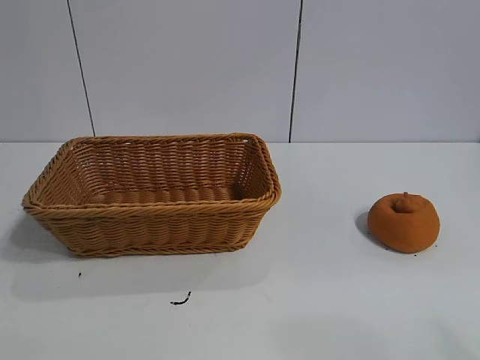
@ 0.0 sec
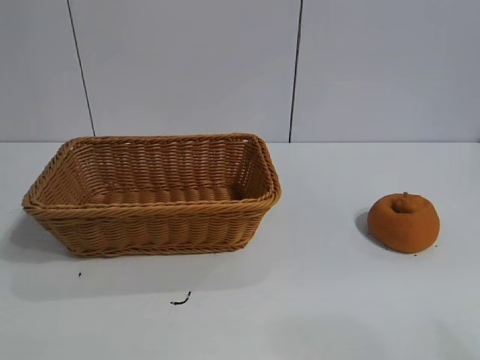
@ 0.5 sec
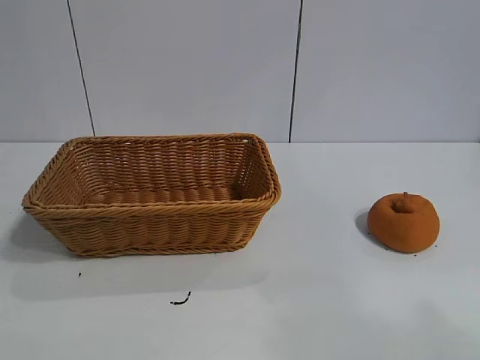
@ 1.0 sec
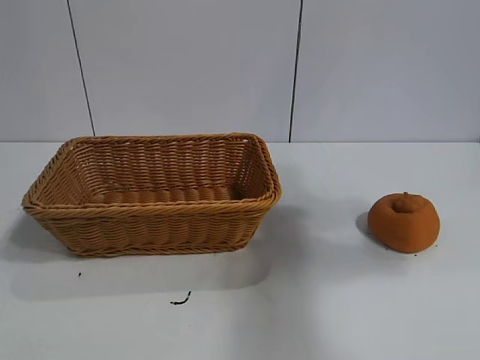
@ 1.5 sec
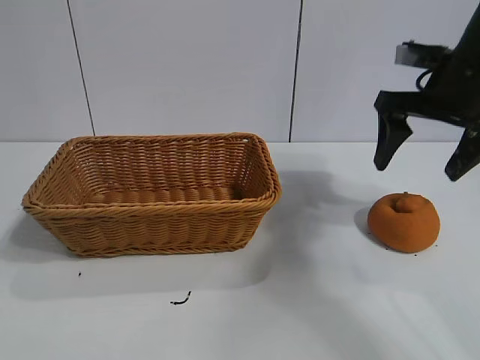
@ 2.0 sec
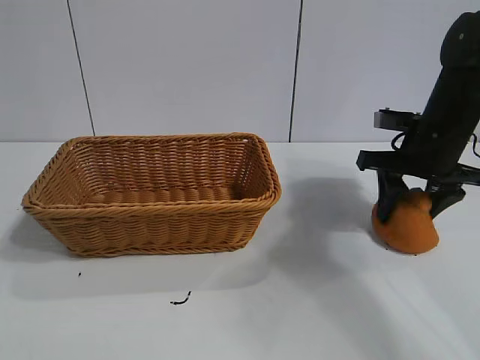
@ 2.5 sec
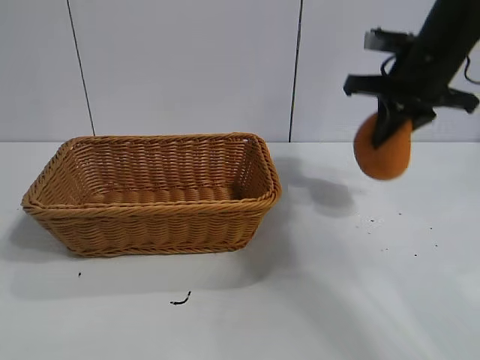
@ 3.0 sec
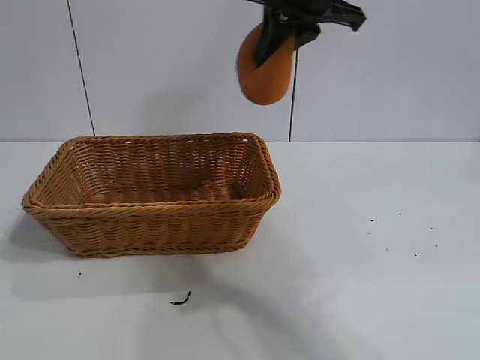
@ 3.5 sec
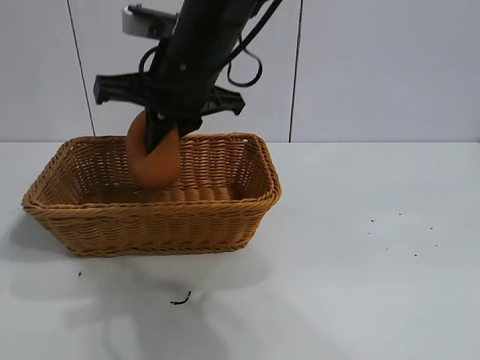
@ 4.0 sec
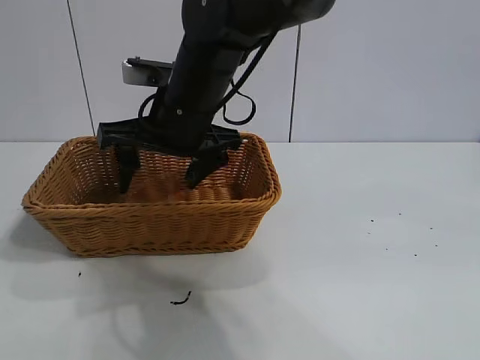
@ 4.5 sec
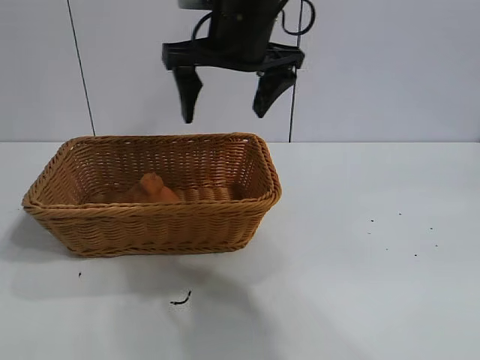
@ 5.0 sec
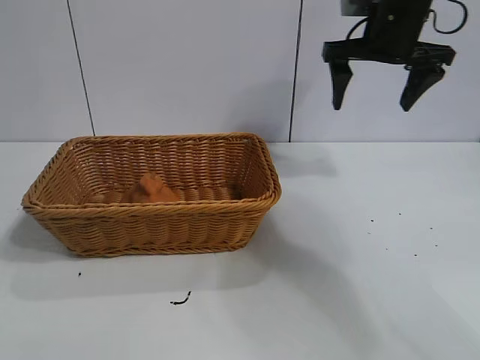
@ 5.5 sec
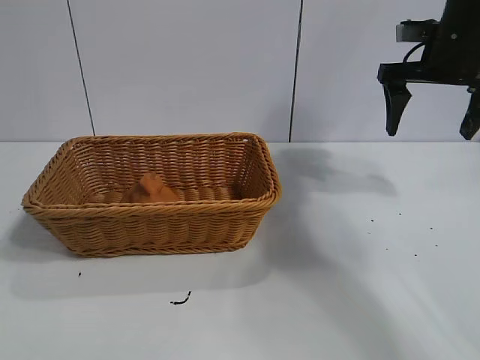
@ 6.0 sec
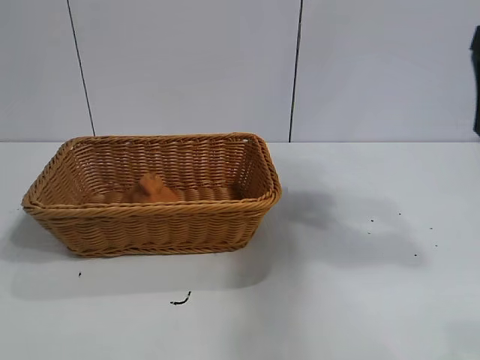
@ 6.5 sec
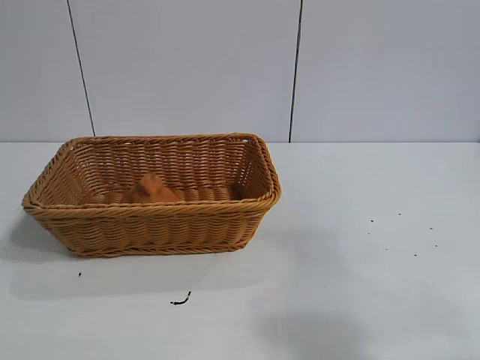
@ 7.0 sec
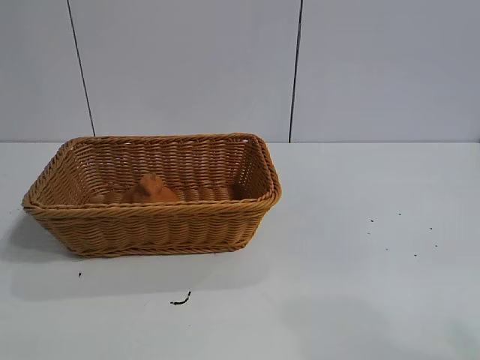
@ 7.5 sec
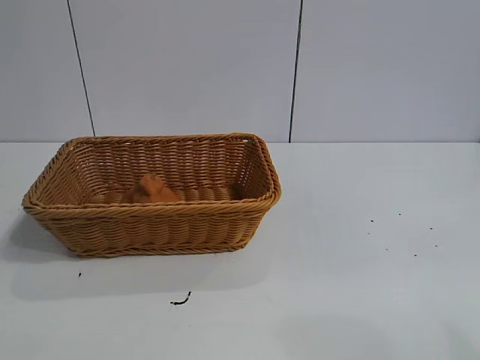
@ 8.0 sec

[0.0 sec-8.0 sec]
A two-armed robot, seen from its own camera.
Task of the whole recording: pick up the orange and put it into the basket.
Step, 1.0 sec to 2.5 sec: Grasp the orange with right gripper.
Step, 3.0 sec to 4.5 sec: Place the orange in the basket with right gripper.

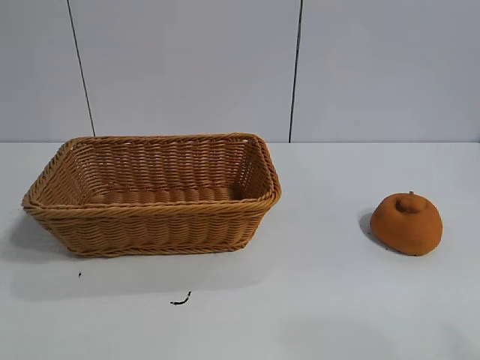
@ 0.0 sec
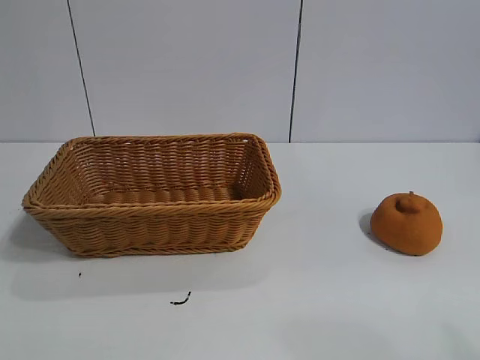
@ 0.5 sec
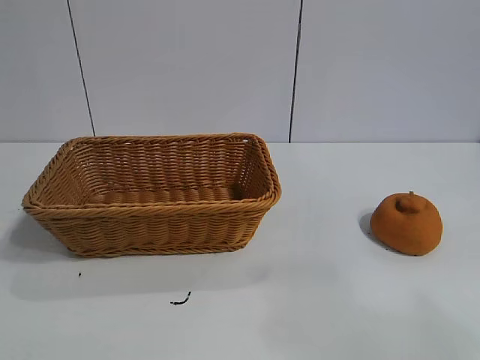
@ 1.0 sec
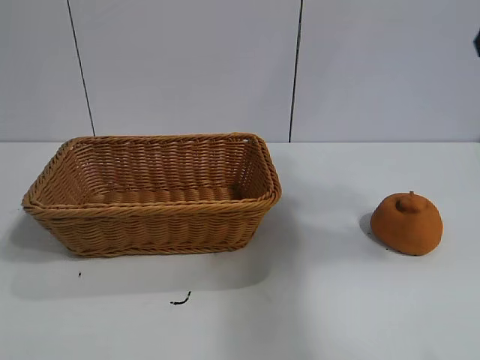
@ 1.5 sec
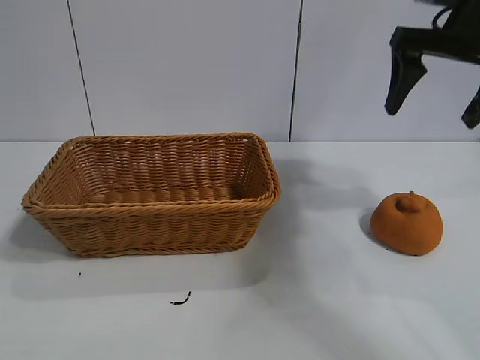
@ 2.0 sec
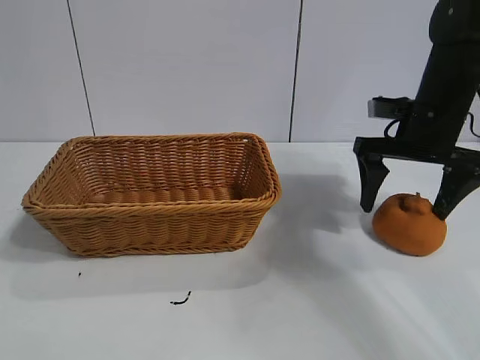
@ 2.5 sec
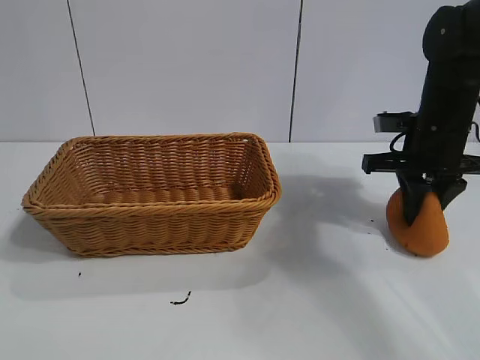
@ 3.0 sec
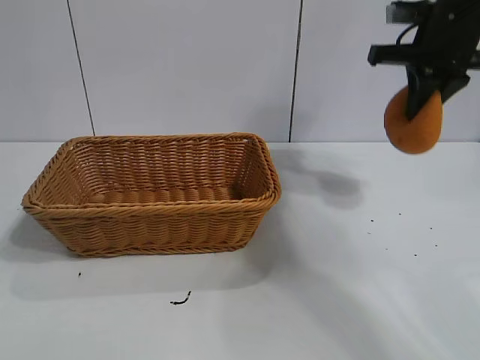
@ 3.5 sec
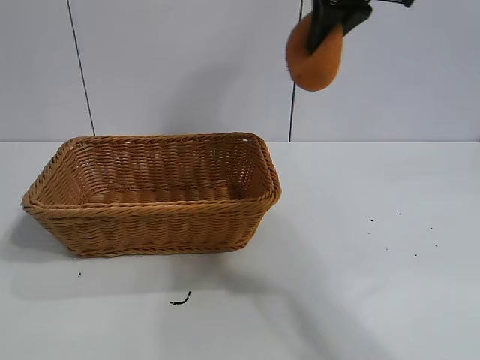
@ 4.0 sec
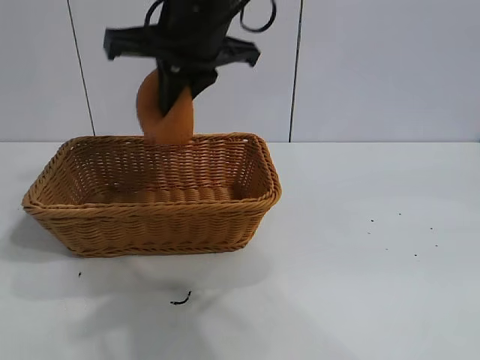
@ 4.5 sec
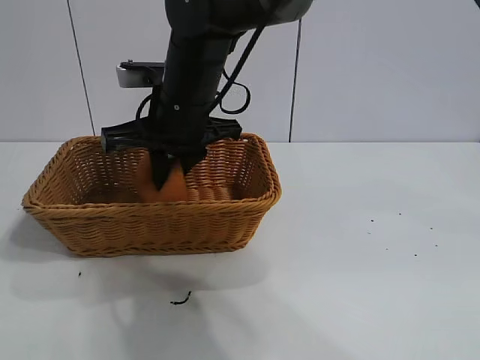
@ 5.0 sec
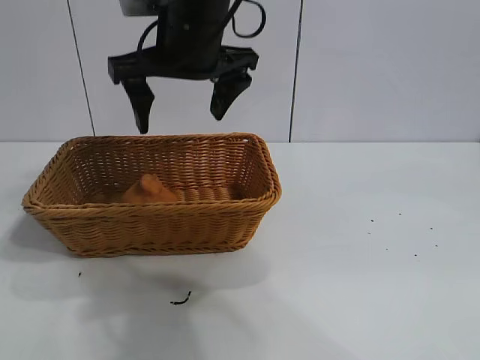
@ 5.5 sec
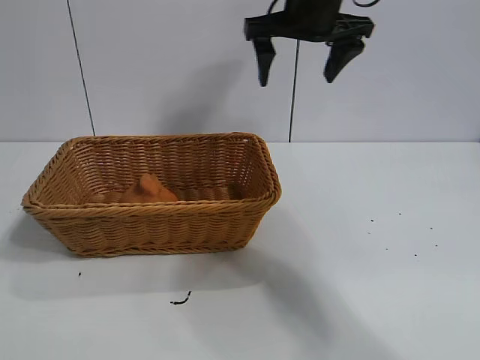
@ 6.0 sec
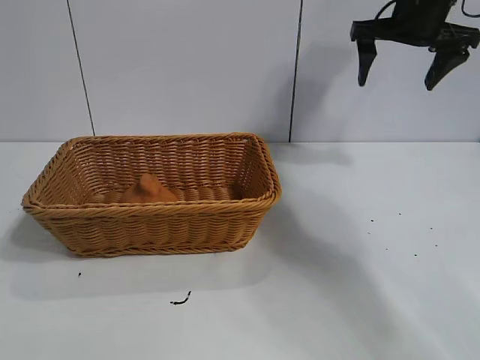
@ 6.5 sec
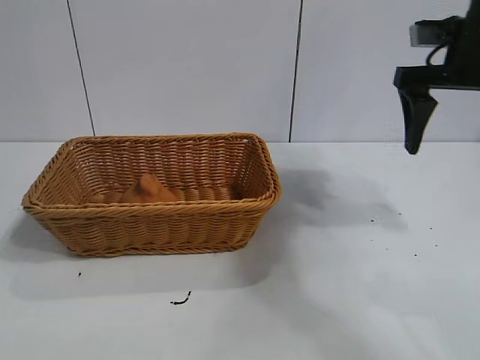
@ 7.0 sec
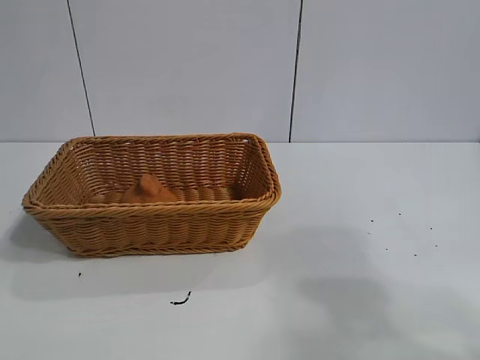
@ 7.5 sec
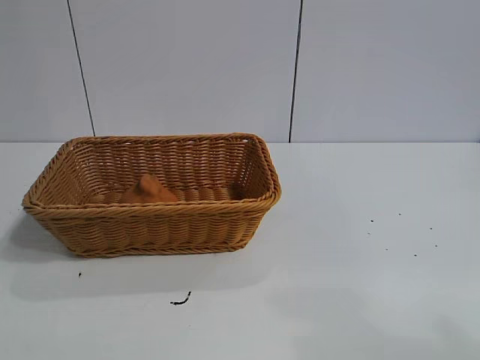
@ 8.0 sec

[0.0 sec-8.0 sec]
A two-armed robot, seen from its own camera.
Task of the whole recording: pick up the orange and put it into the basket.
Step, 1.0 sec to 3.0 sec: Grasp the orange with right gripper.
Step, 3.5 sec to 5.0 sec: Place the orange in the basket with right gripper.

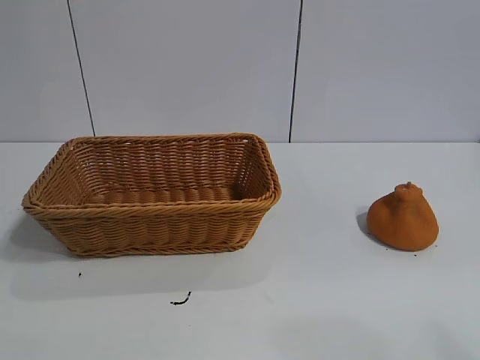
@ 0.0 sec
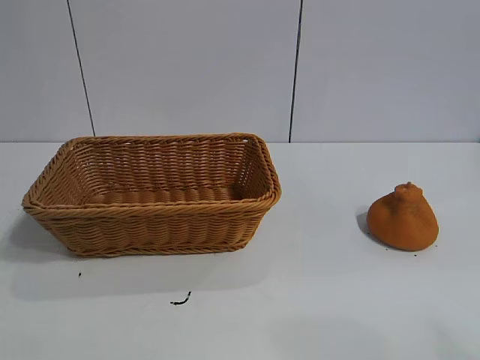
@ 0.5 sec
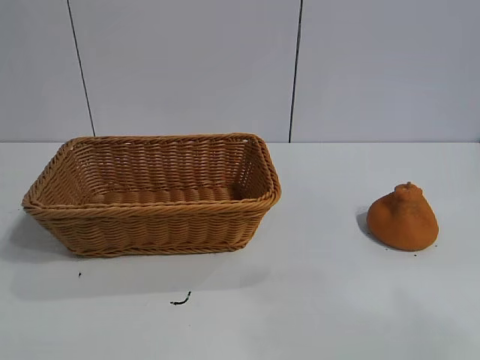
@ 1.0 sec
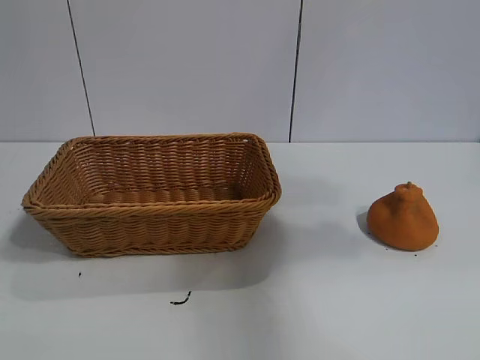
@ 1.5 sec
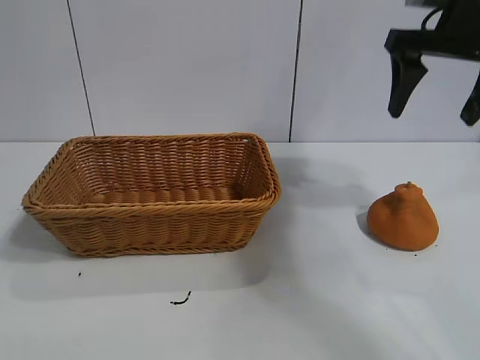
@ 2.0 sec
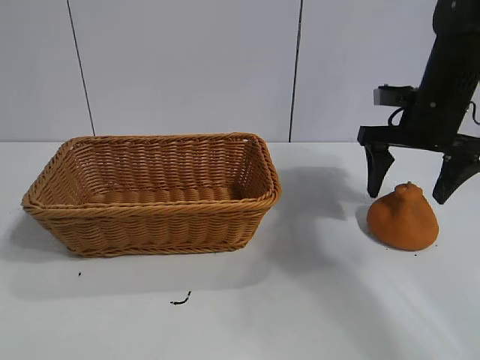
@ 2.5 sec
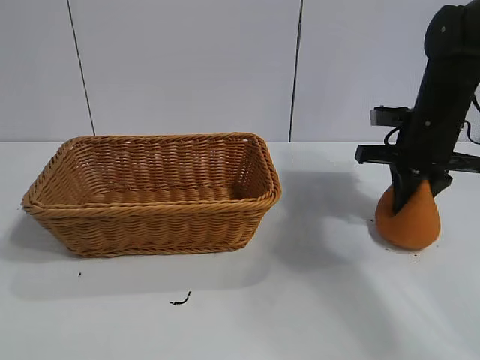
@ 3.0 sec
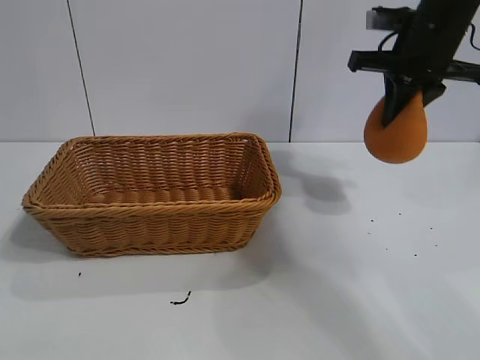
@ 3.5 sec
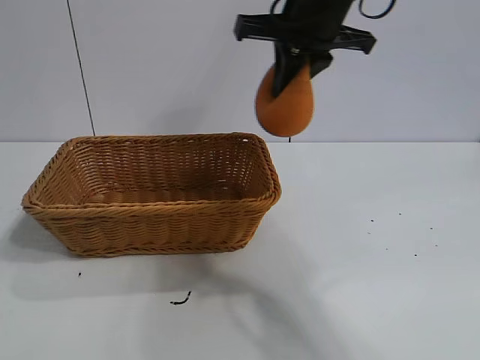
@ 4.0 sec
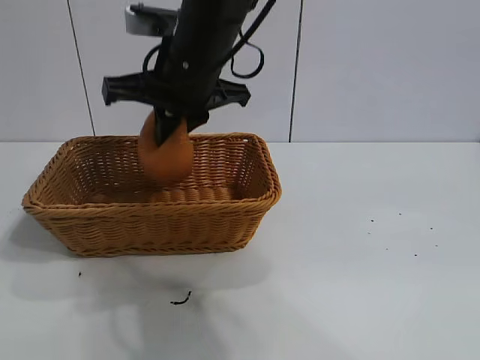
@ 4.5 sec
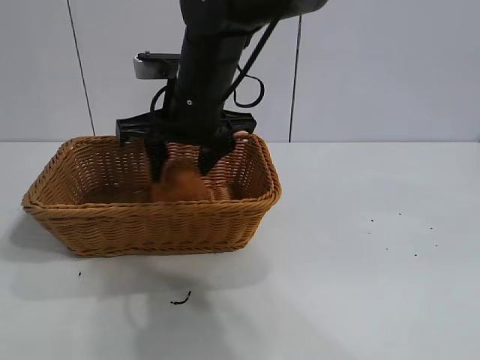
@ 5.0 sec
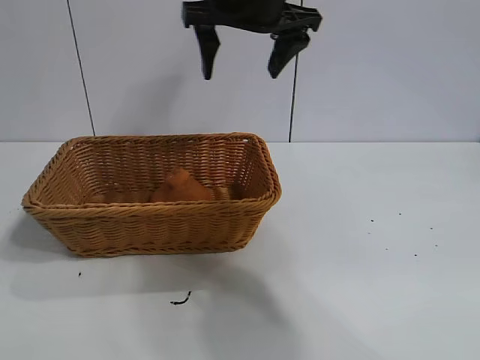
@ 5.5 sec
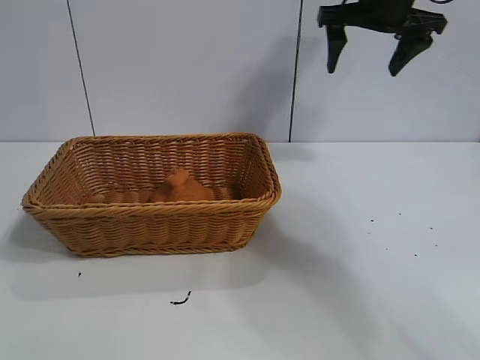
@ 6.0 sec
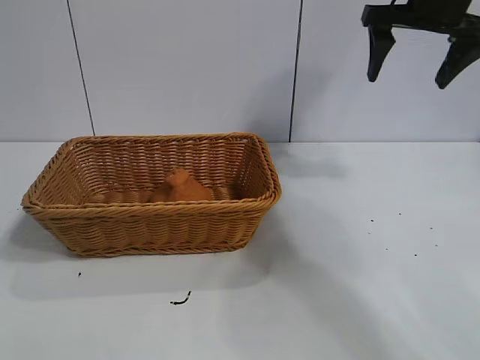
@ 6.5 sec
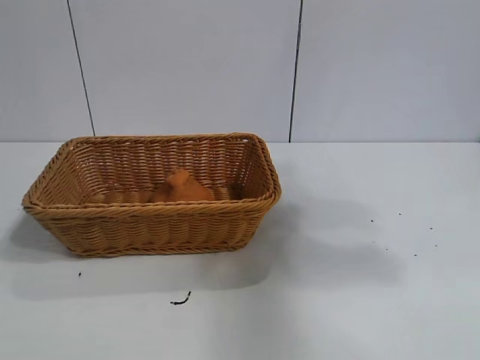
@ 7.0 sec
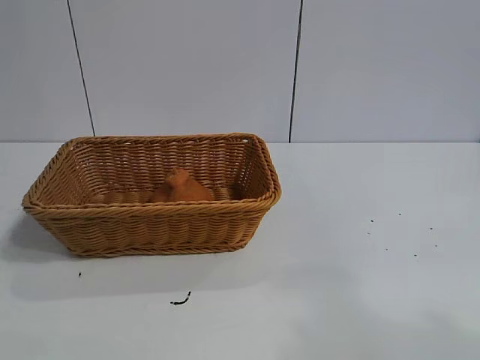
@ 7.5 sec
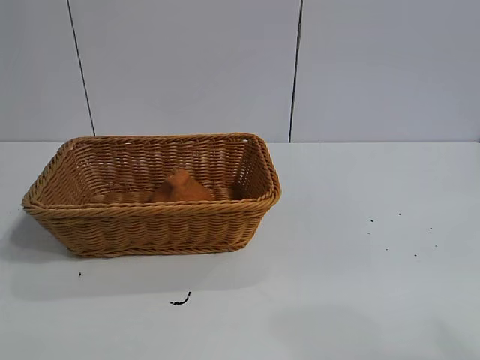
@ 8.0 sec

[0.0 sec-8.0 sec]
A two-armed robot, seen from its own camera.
Task of the whole recording: pick up the orange and put it into the basket.
Step, 1.0 sec to 2.5 sec: Grasp the orange with right gripper.
Step, 3.5 sec to 5.0 sec: Place the orange in the basket with right gripper.
